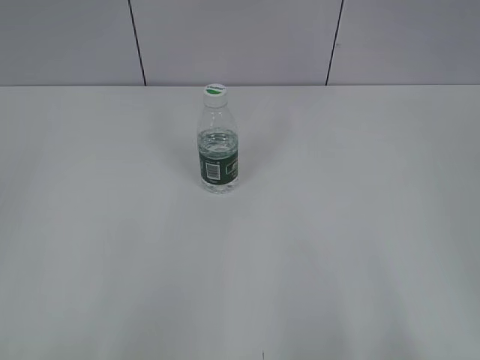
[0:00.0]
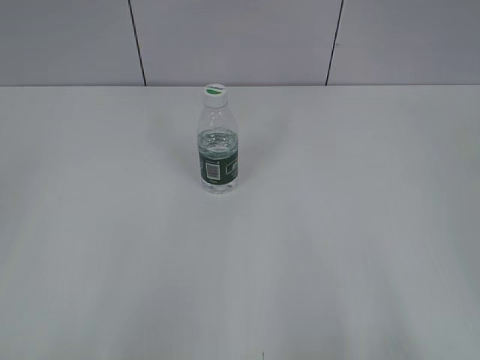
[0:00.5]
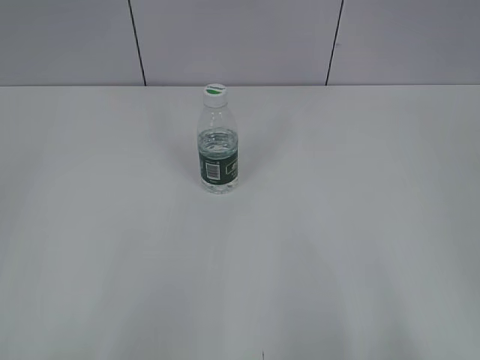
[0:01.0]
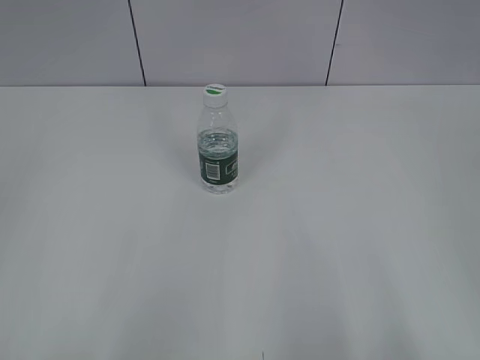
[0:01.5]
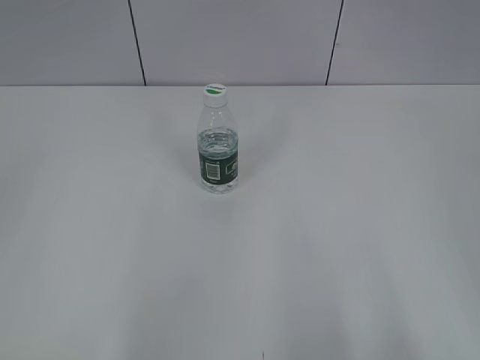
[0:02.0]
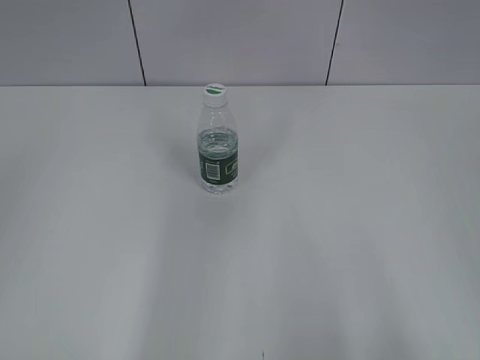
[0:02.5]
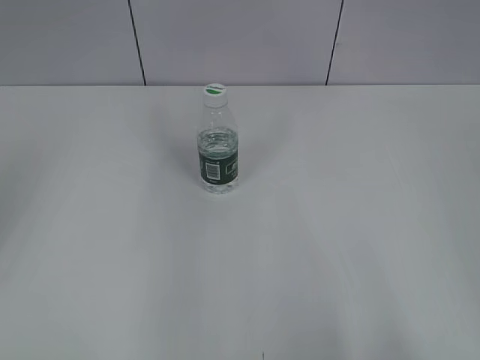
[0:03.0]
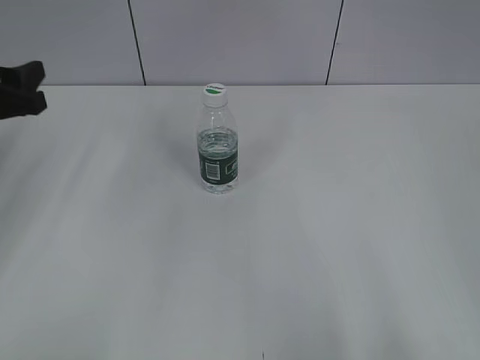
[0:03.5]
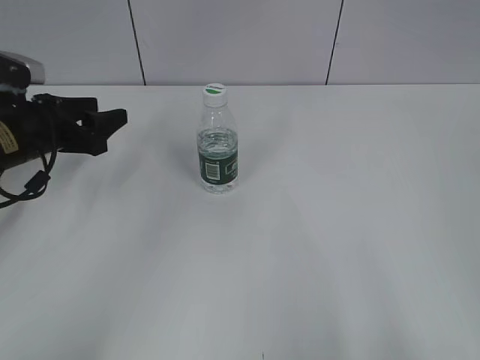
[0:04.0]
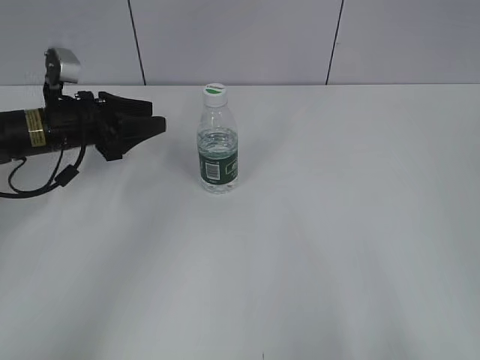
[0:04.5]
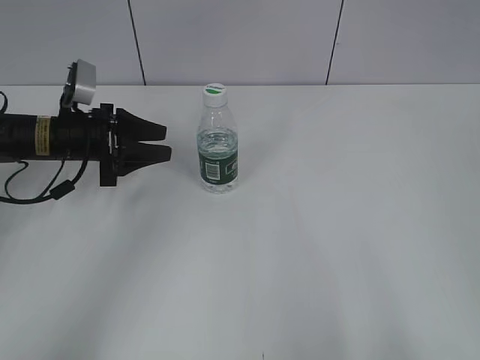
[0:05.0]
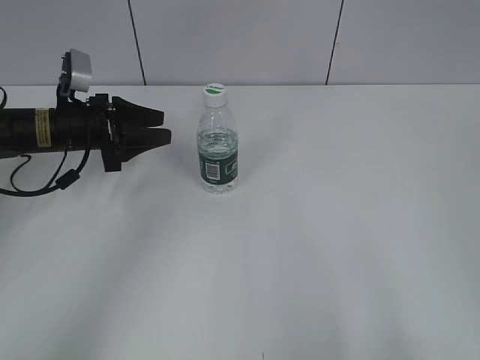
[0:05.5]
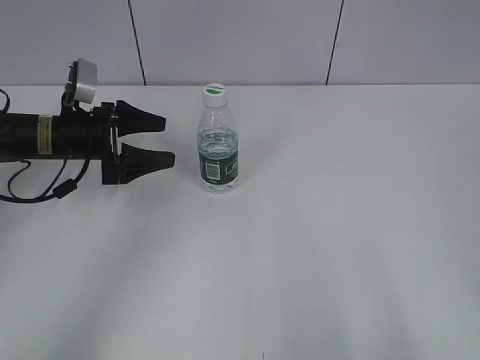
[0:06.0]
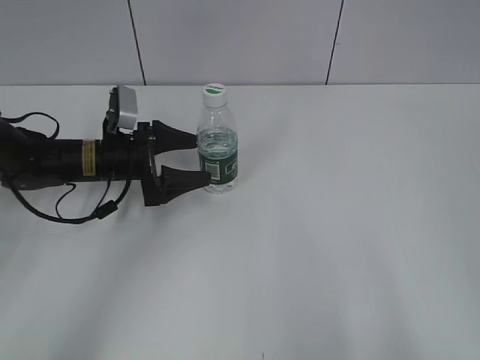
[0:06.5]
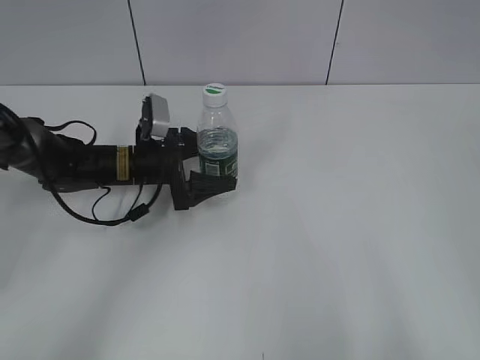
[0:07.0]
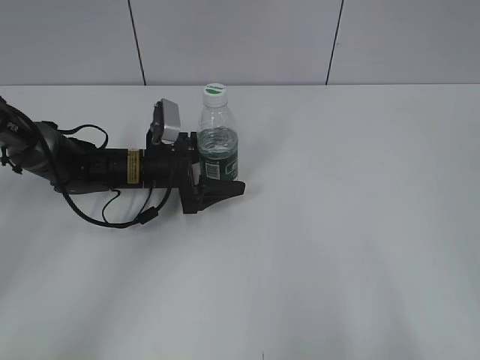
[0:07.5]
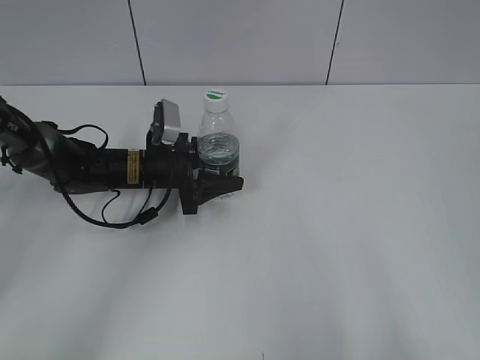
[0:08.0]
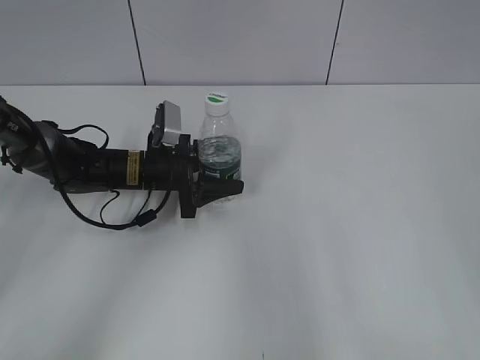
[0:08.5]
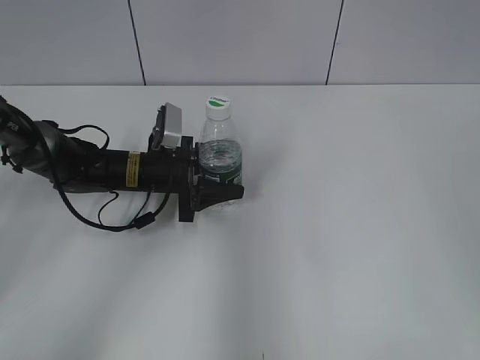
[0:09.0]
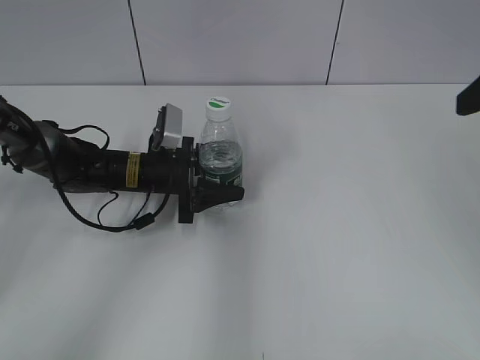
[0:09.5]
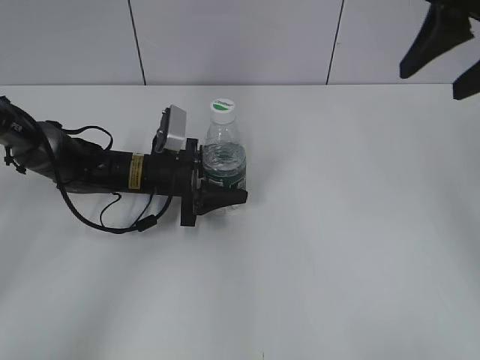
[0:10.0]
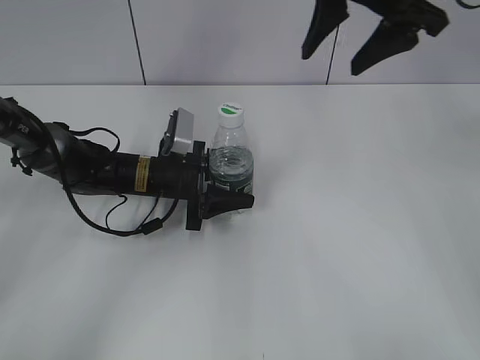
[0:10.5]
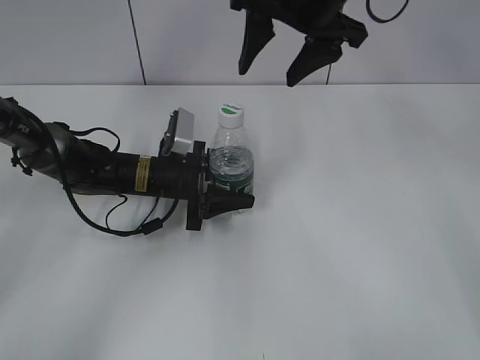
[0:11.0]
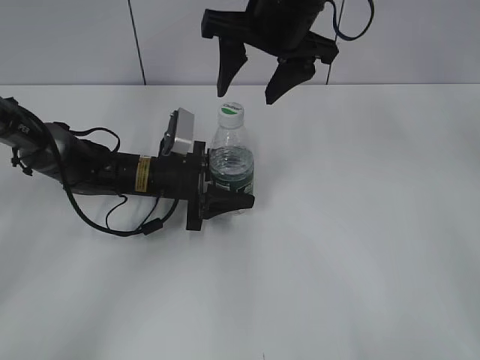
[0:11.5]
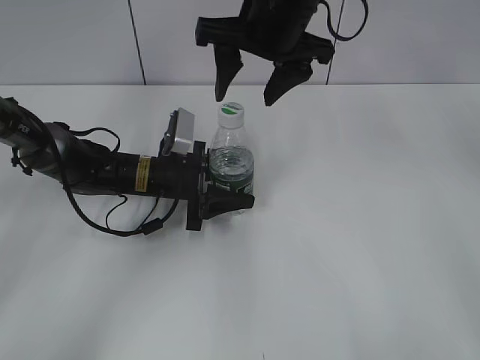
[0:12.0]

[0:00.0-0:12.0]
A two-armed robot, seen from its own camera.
Step, 0:00.0 to 0:10.5: Grasp the bottle and move it to the center of the table with the left gripper.
0:02.0 to 0:04.0: The left gripper moves forward and downward, about 40 cm.
0:04.0 to 0:06.0: The left gripper changes place by roughly 5 cm, and opens its fingers.
0:06.0 to 0:08.0: The left gripper is displaced to the right and downward by roughly 10 cm, and closes its fingers.
0:08.0 to 0:10.0: The right gripper heads forward, covering approximately 30 cm.
0:10.0 to 0:12.0: The right gripper travels to the left by roughly 20 cm.

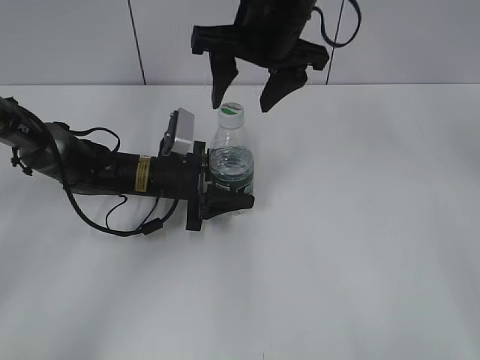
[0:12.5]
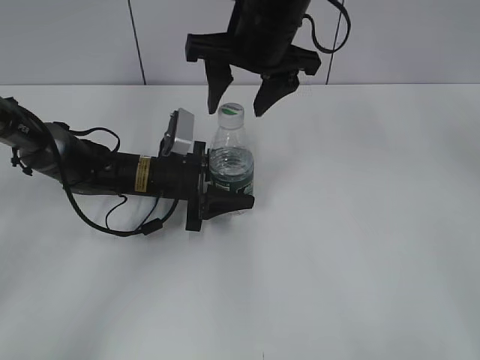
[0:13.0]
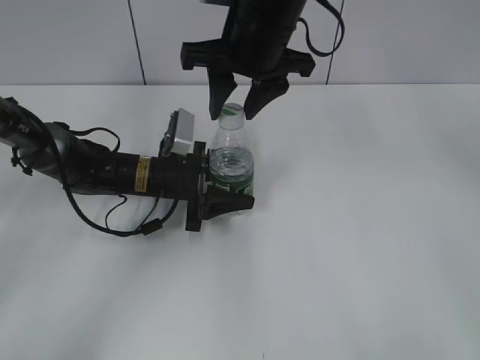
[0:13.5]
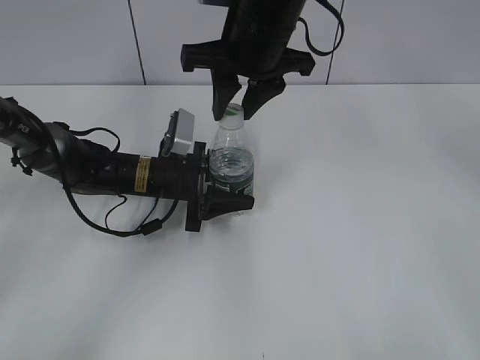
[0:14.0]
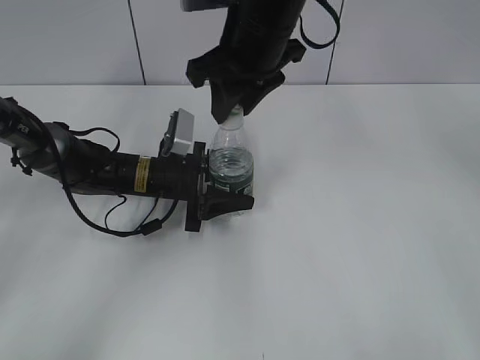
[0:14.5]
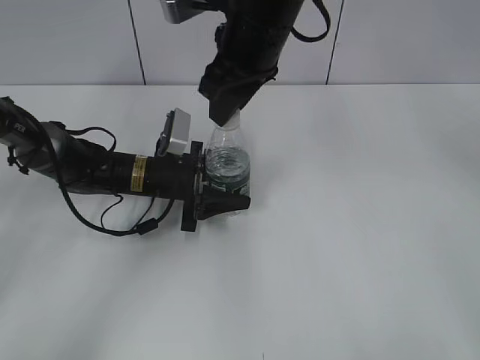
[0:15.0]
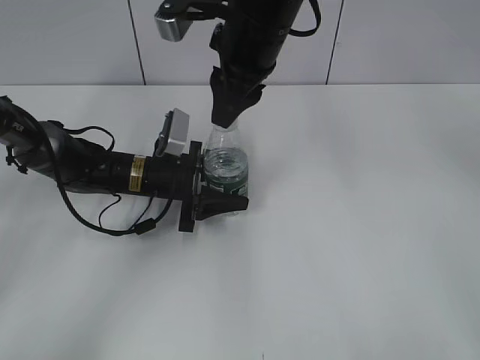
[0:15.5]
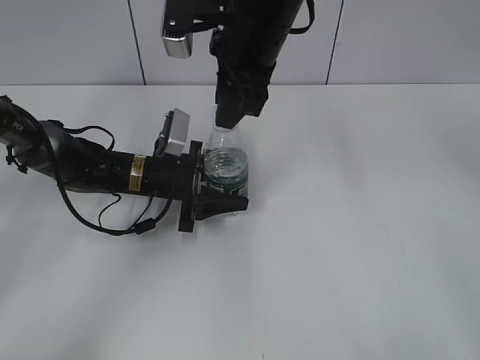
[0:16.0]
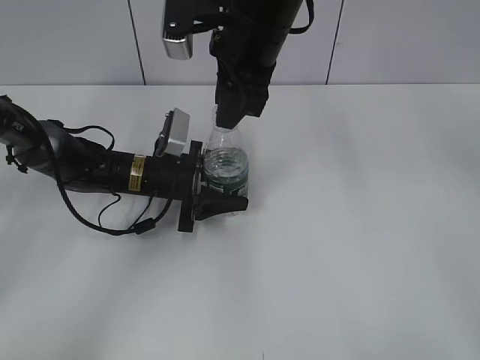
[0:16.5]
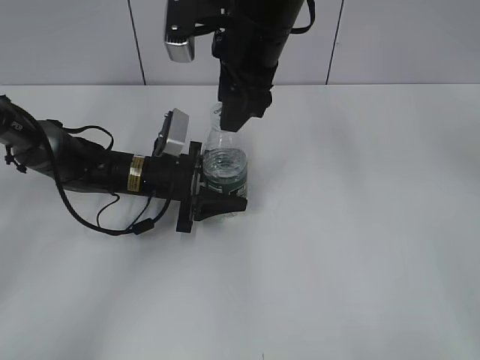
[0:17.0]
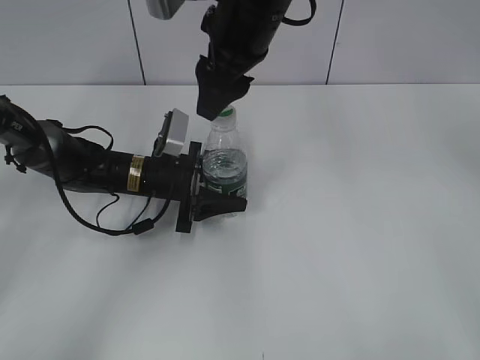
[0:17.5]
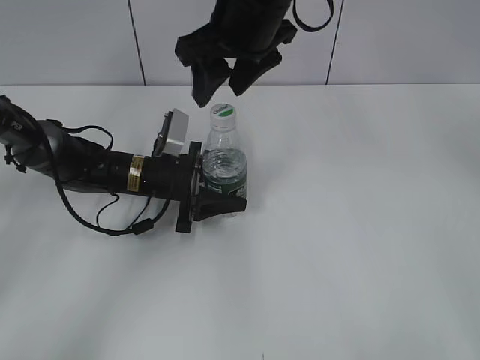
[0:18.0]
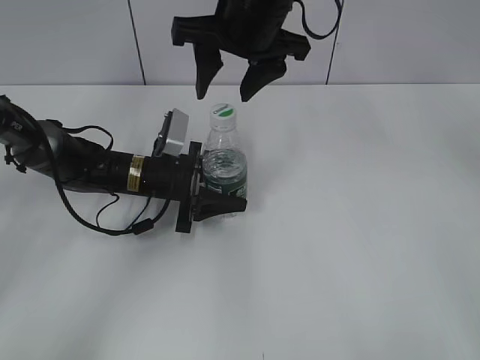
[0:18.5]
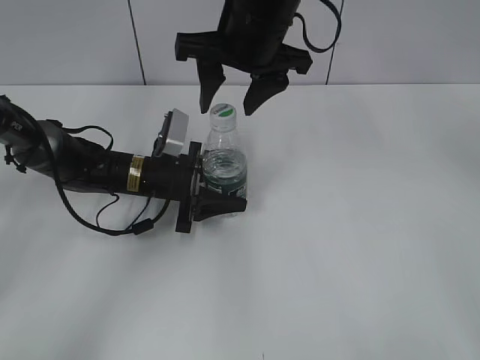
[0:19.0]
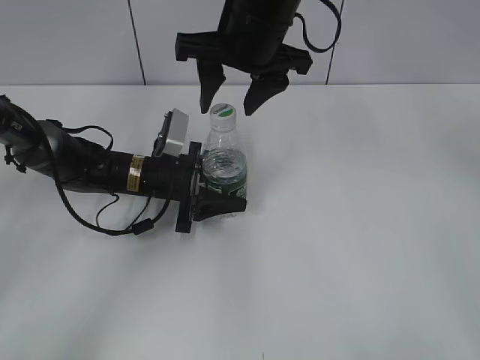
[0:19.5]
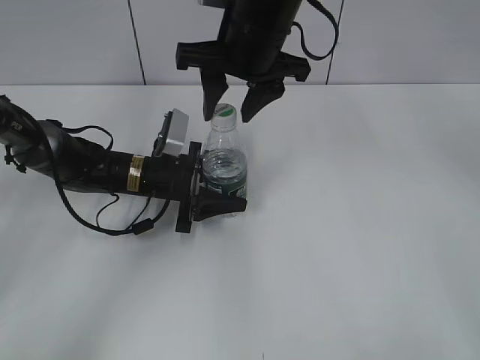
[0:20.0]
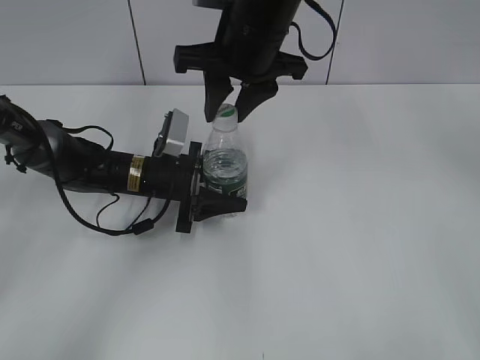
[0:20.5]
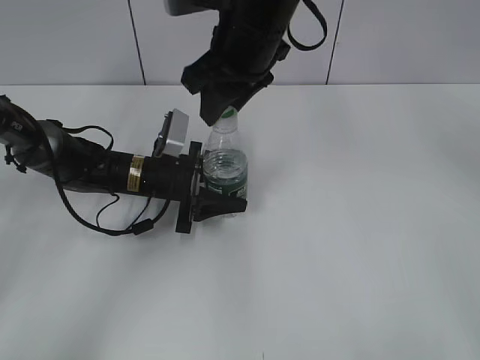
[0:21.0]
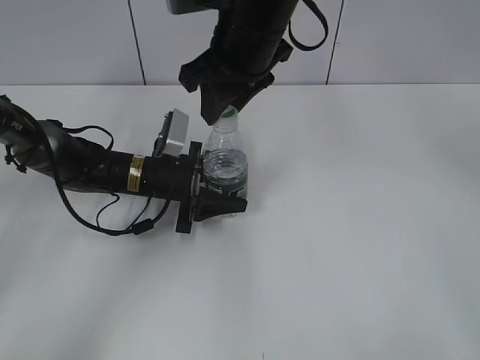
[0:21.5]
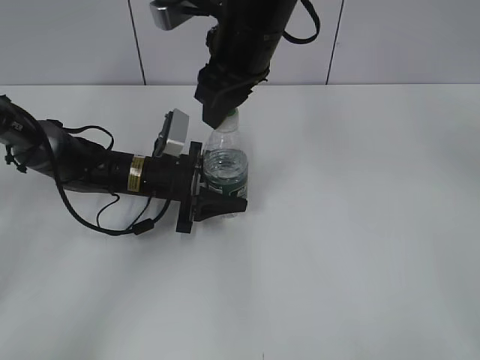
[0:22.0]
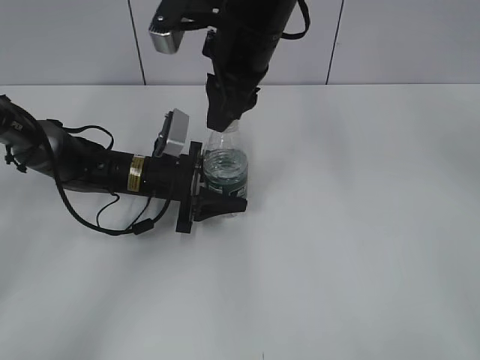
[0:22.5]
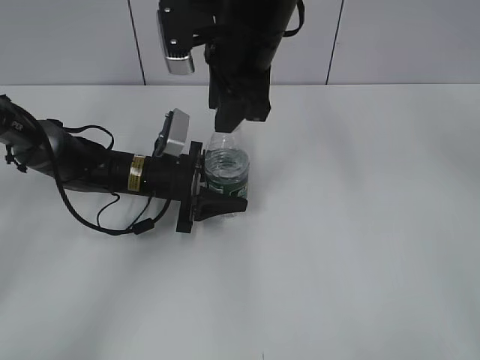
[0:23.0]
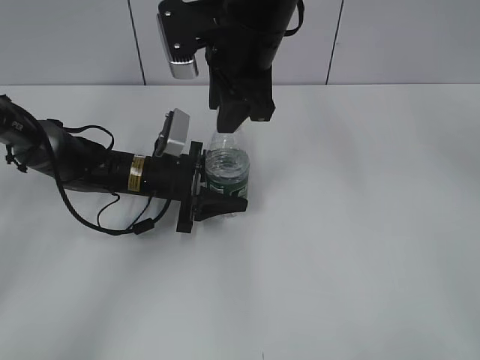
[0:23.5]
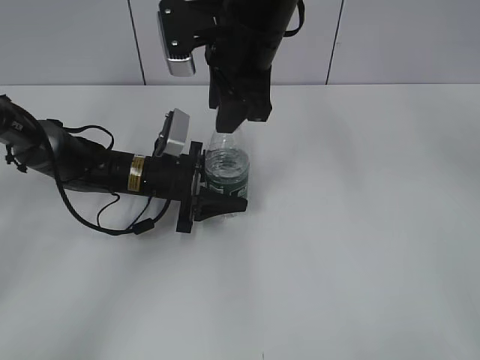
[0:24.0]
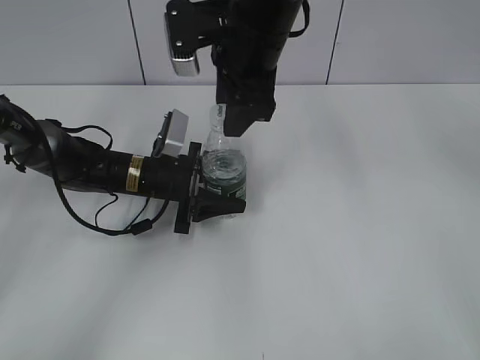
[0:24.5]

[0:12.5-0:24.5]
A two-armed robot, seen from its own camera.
0:12.5 to 0:14.5: The right gripper closes up.
0:16.5 to 0:18.5: The right gripper opens its fingers.
0:18.5 to 0:20.5: The right gripper closes up.
0:22.5 to 0:24.5: The right gripper opens.

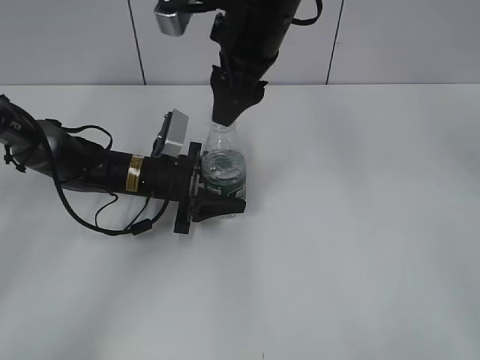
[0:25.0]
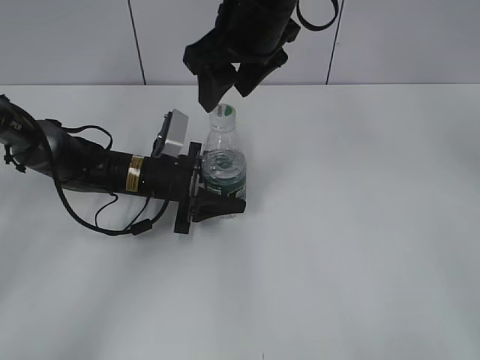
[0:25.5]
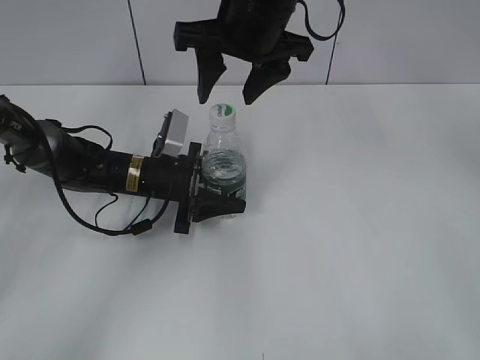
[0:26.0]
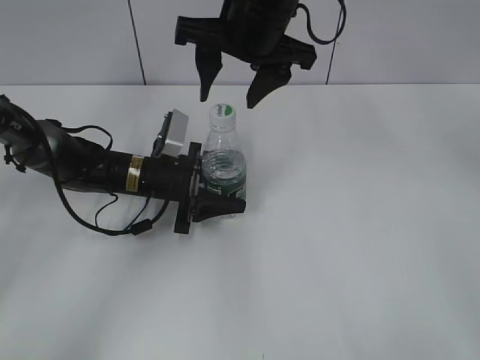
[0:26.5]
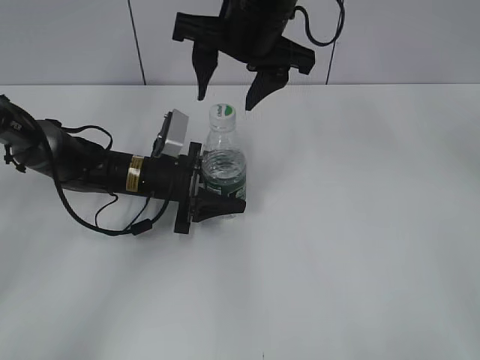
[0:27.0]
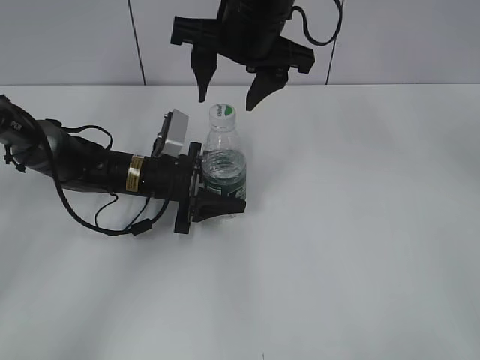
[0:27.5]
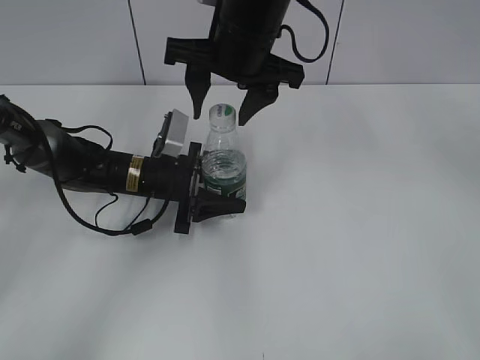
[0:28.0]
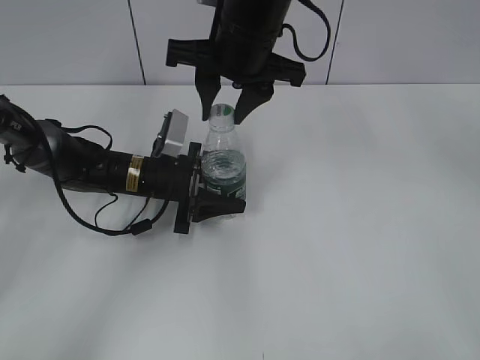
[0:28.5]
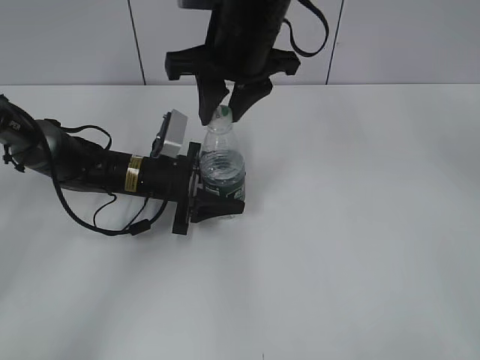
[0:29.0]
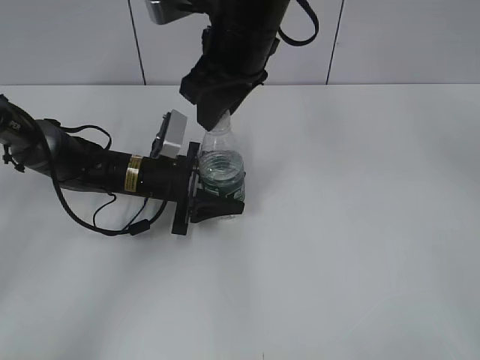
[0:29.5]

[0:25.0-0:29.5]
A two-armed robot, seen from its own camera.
0:27.0 to 0:29.5: The right gripper closes up.
